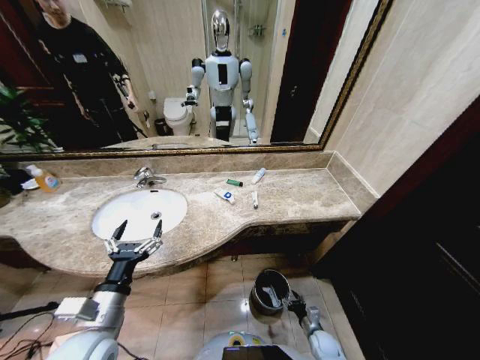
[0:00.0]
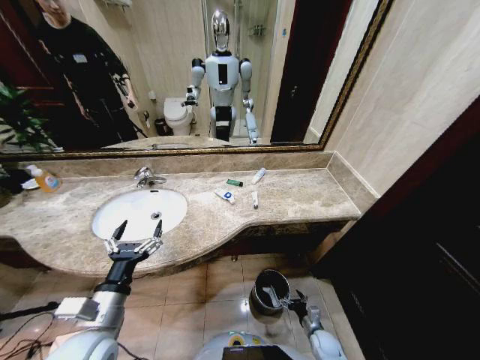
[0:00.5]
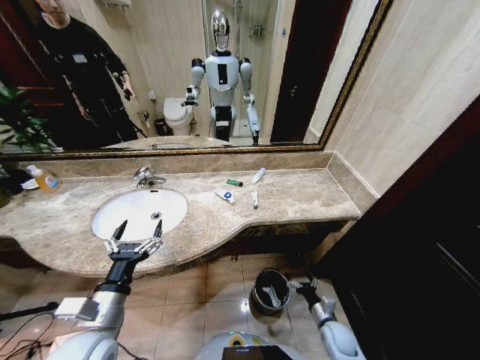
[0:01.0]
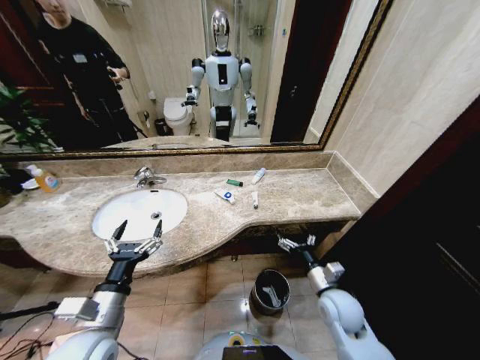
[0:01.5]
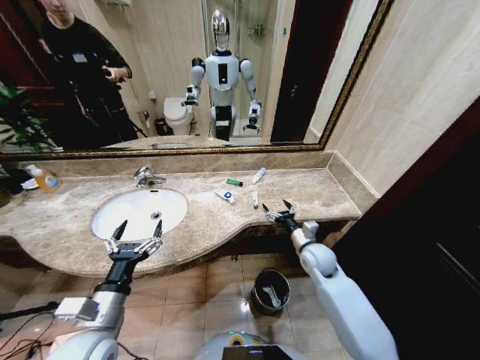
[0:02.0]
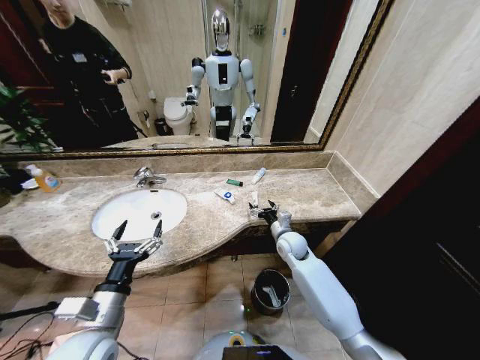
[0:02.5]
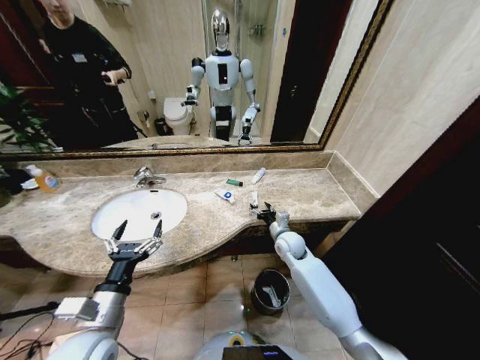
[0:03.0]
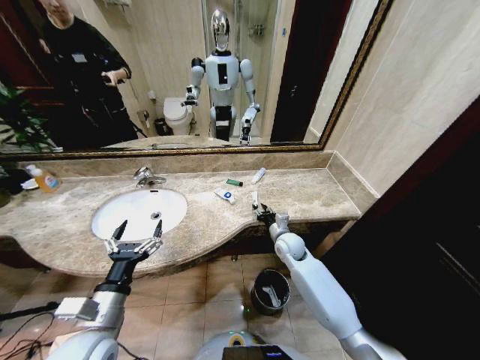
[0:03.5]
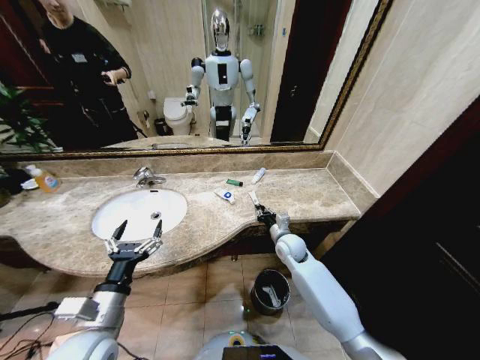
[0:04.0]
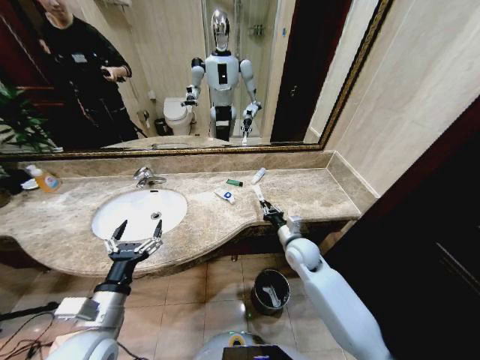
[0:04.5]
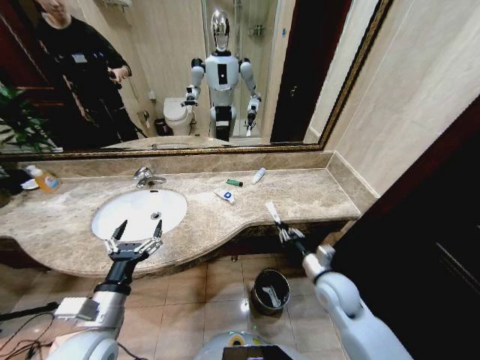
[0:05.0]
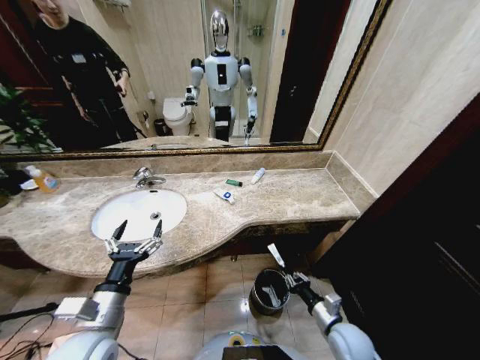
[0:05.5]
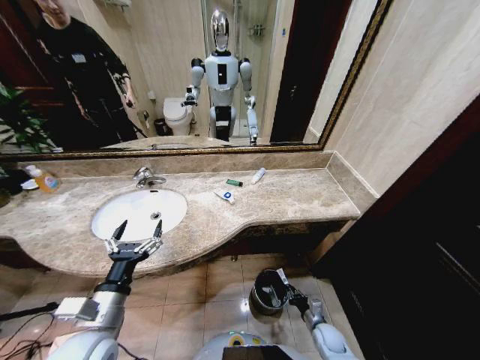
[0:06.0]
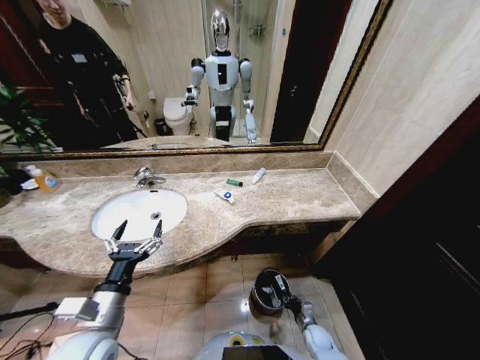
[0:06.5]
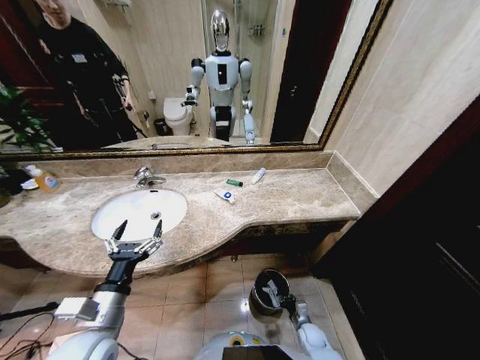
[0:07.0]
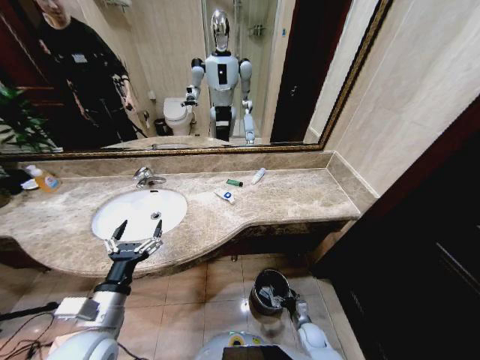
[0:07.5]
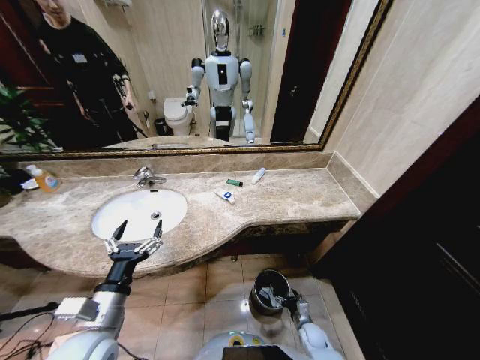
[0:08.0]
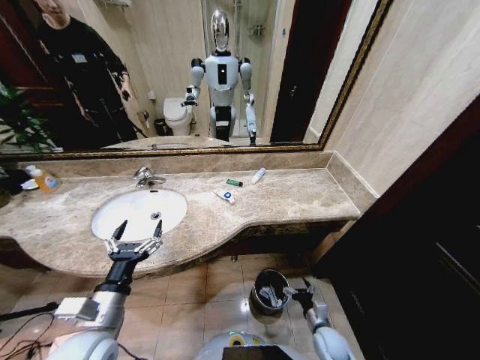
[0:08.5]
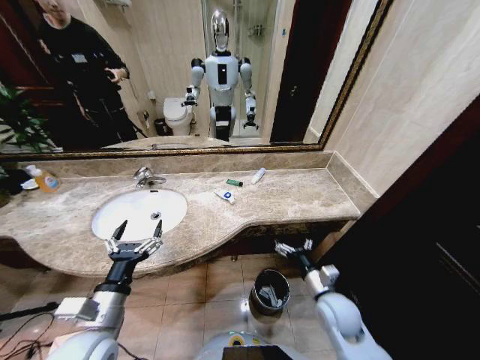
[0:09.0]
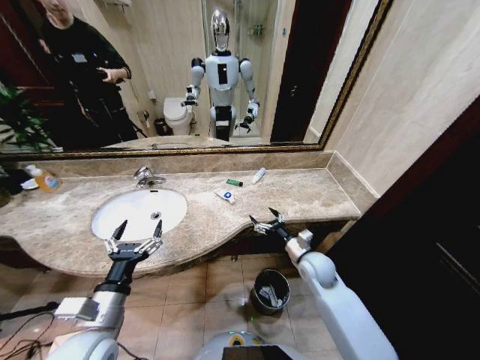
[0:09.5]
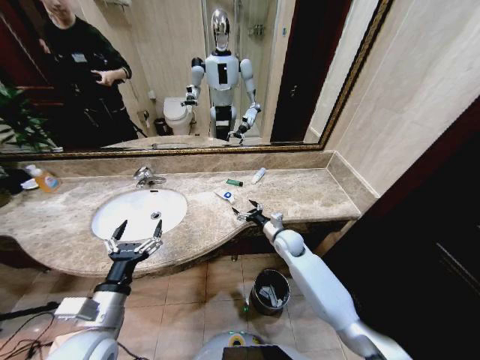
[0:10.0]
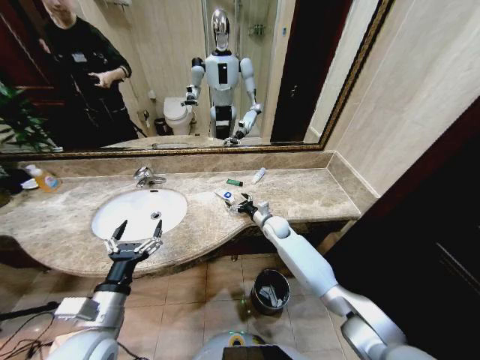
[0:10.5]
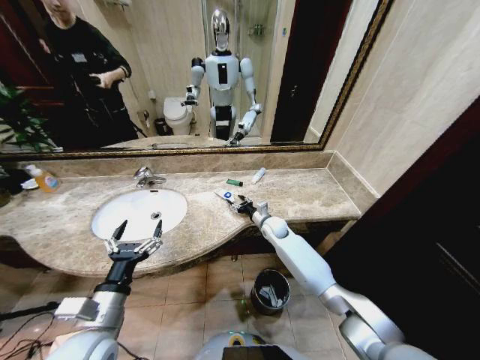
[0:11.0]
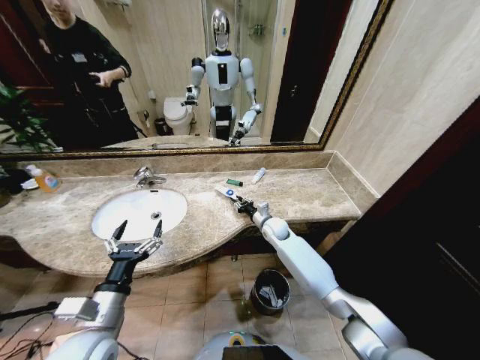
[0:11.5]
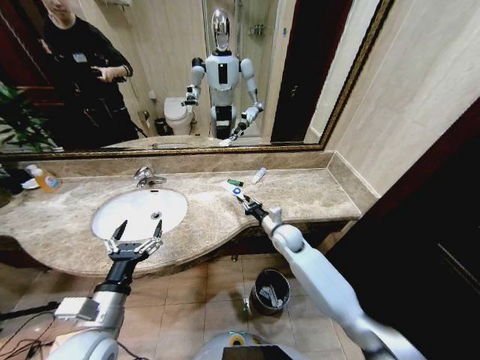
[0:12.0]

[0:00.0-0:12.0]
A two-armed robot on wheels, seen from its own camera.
Task of the whole recording: Pick up the trash from the sink and place it in the trash bin.
0:00.0 to 0:02.0: The right gripper moves upward and forward, about 35 cm, and opens up.
0:02.0 to 0:04.0: The right gripper goes about 5 cm to the left, and closes its fingers.
0:04.0 to 0:06.0: The right gripper moves downward, backward and to the right, approximately 35 cm.
0:06.0 to 0:08.0: The right gripper shifts by roughly 5 cm, and opens its fingers.
0:08.0 to 0:10.0: The right gripper goes approximately 35 cm upward and forward.
0:10.0 to 0:12.0: The right gripper closes up.

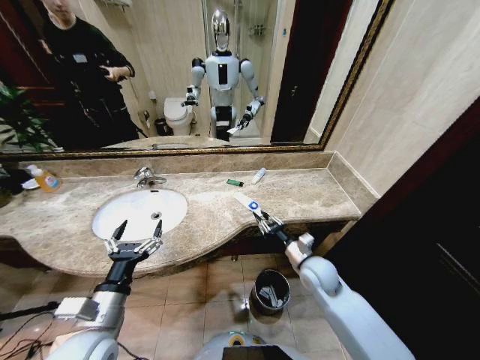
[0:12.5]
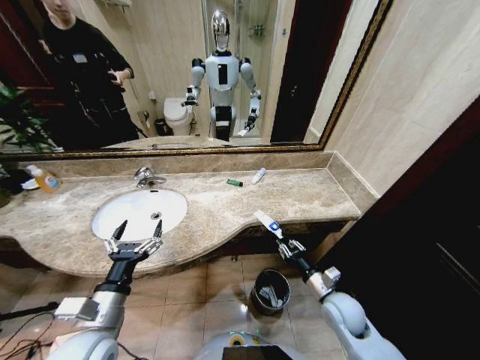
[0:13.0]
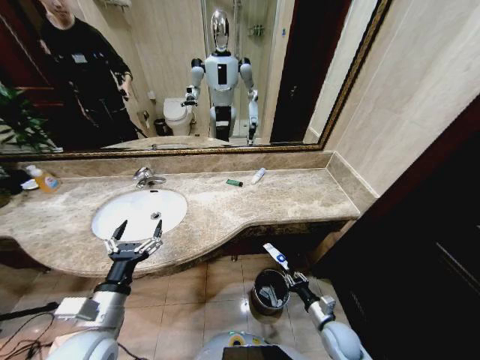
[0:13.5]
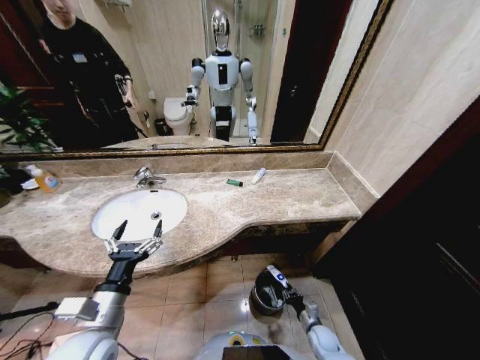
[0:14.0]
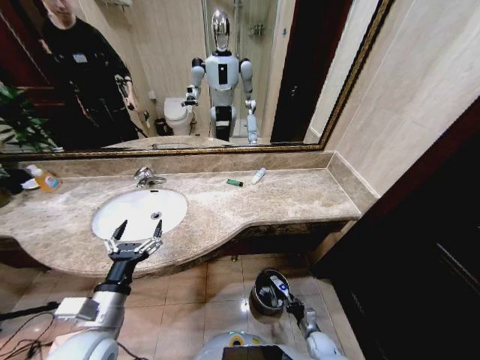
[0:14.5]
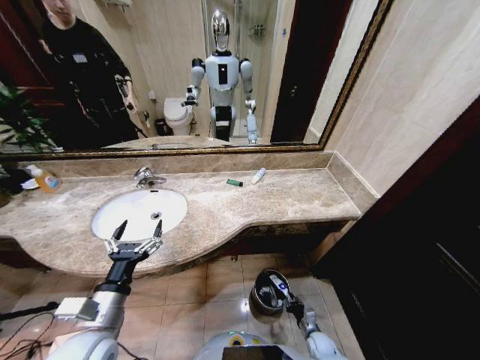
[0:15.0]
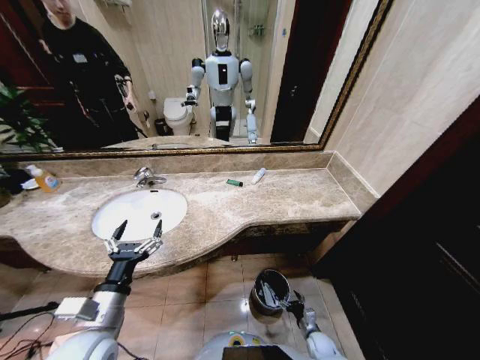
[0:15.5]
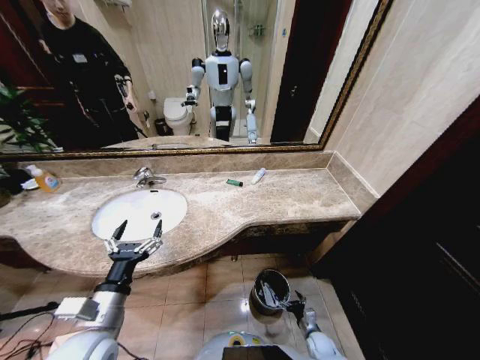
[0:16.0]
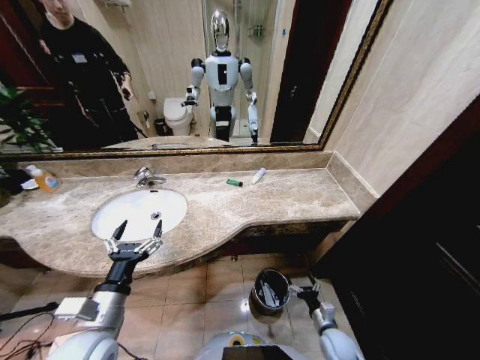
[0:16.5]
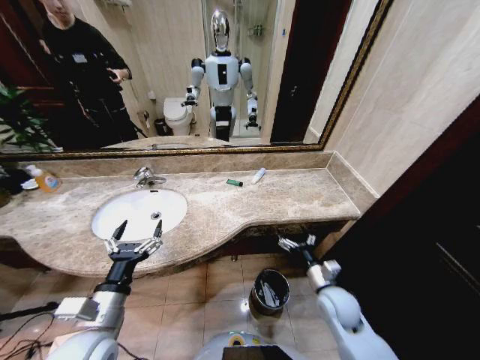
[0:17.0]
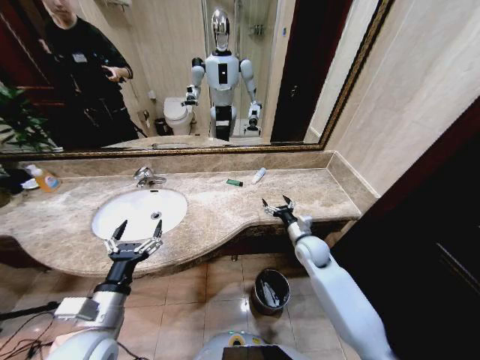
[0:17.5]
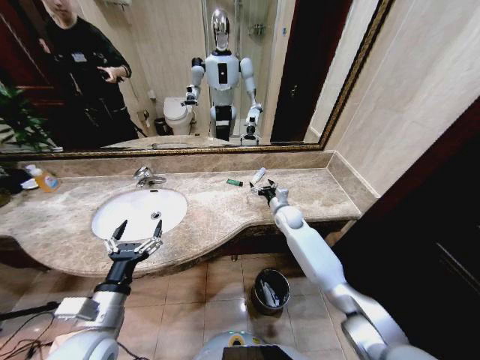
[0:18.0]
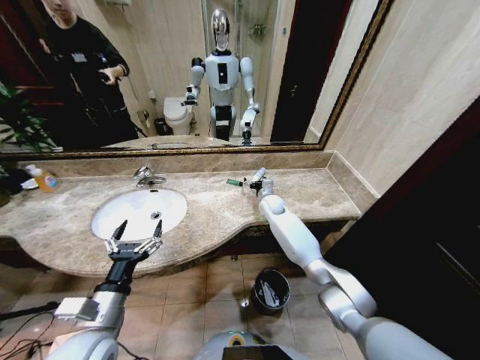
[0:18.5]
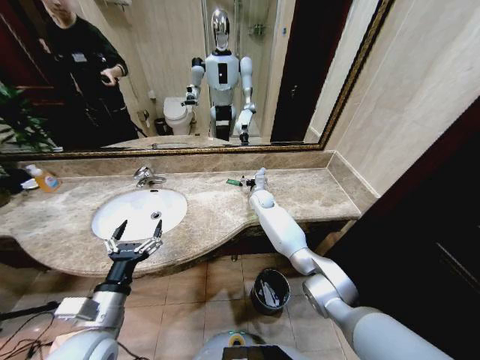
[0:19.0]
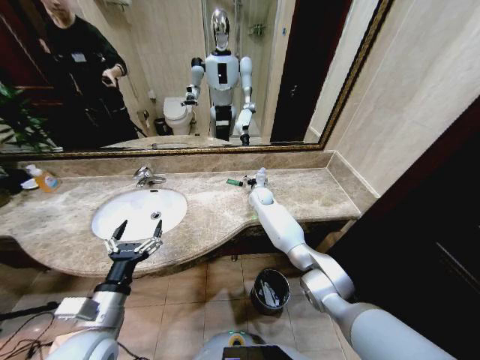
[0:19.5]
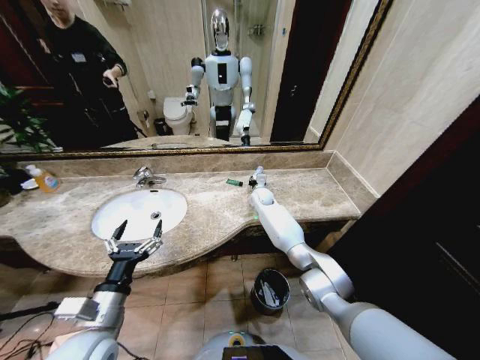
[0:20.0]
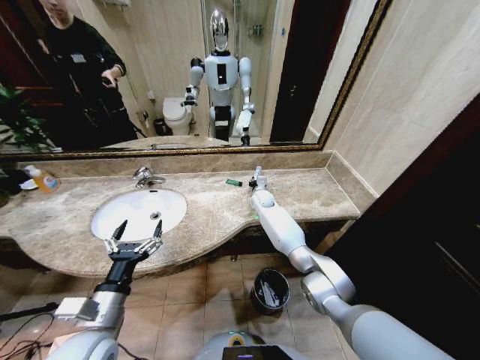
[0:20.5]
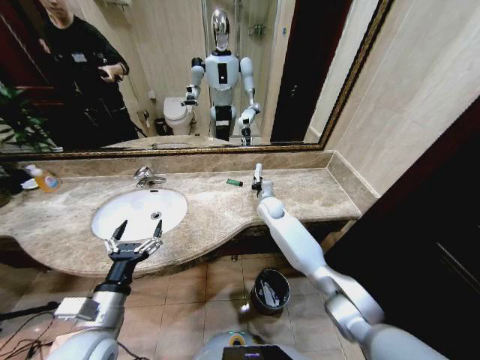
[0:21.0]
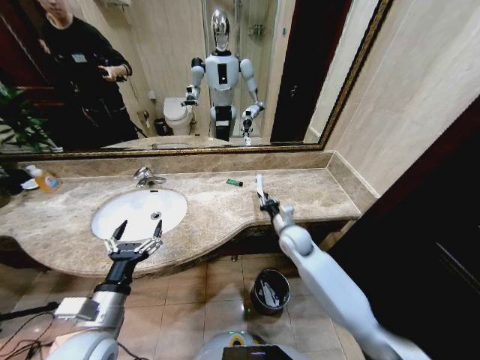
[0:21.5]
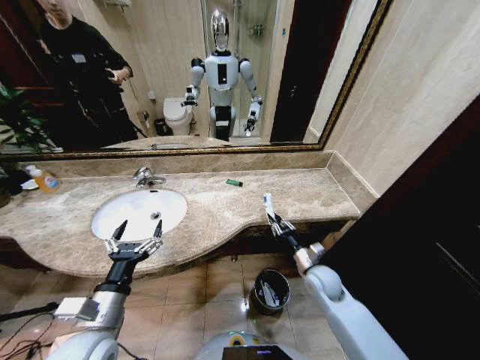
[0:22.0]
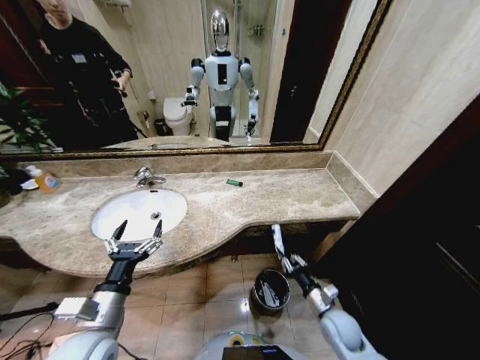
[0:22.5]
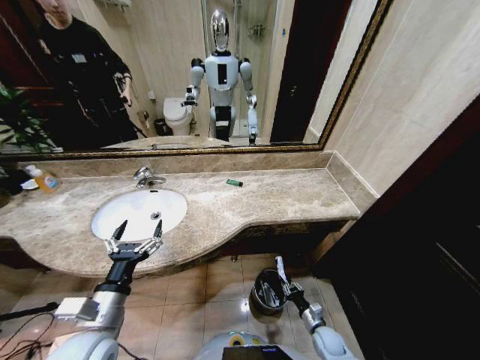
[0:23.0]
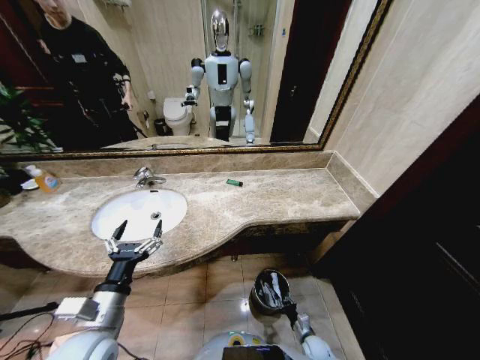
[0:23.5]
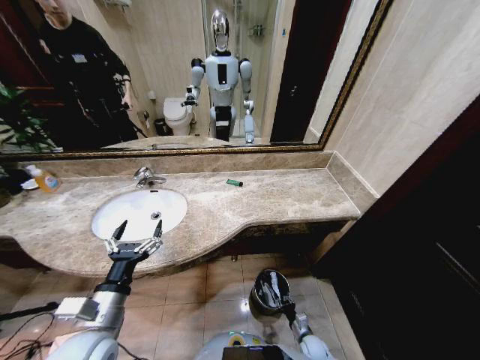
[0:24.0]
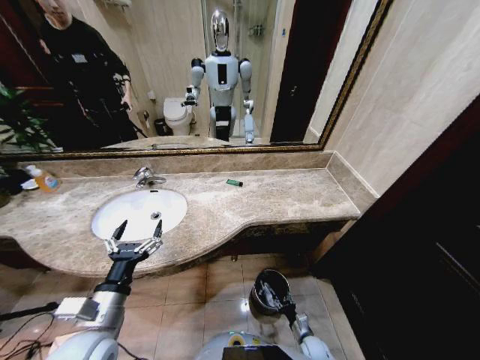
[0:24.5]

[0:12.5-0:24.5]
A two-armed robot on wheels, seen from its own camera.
Task of the whole recording: Pick up the trash from the sink and place it in the trash bin.
0:12.5 to 0:14.5: The right gripper travels downward by approximately 35 cm.
0:14.5 to 0:16.5: The right gripper goes approximately 15 cm upward, and opens its fingers.
0:16.5 to 0:18.5: The right gripper heads forward, upward and to the left, covering approximately 50 cm.
0:18.5 to 0:20.5: The right gripper closes its fingers.
0:20.5 to 0:22.5: The right gripper shifts about 40 cm backward and to the right.
0:22.5 to 0:24.5: The right gripper moves downward, some 25 cm.

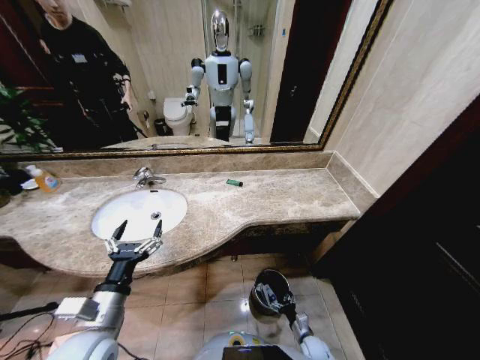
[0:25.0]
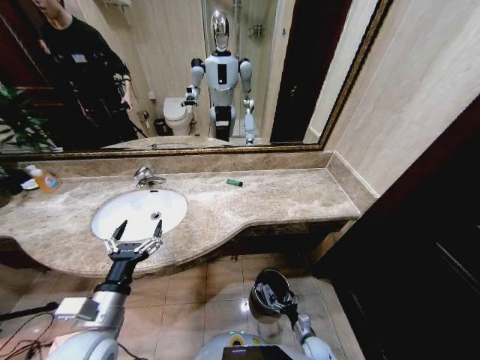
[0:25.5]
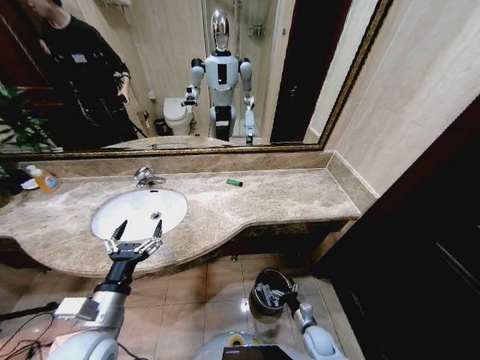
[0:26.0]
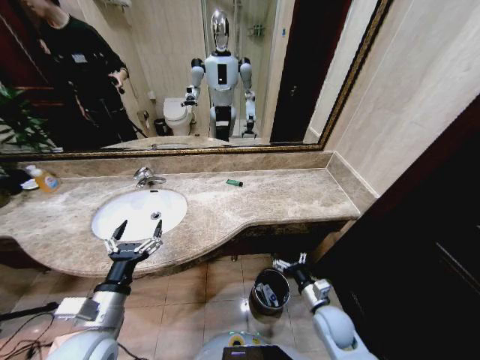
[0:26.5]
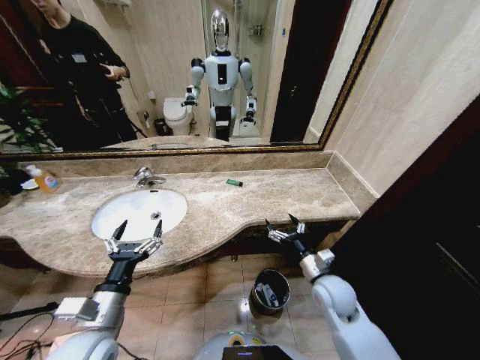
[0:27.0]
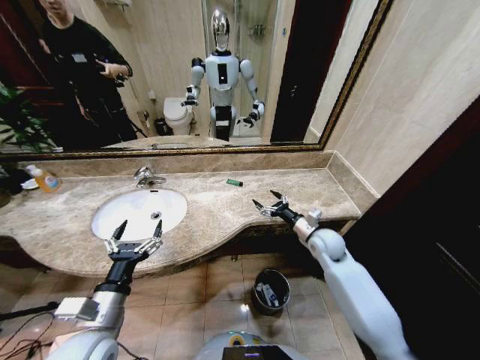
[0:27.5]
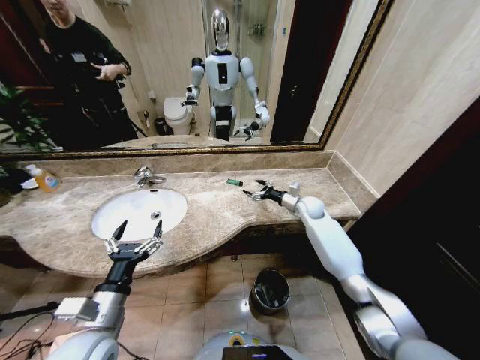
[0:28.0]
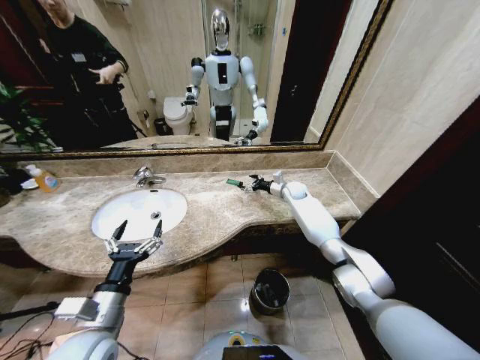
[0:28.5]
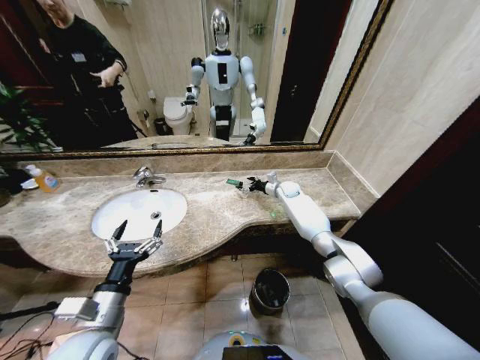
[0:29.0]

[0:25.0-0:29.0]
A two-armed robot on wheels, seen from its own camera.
Task of the whole recording: Pick up the trash from the sink and place it in the trash bin.
0:25.0 to 0:27.0: The right gripper goes about 35 cm upward.
0:27.0 to 0:29.0: The right gripper goes some 40 cm forward.
